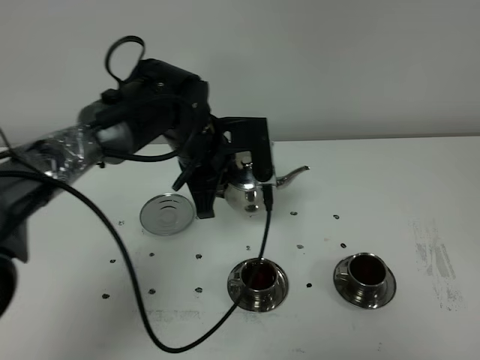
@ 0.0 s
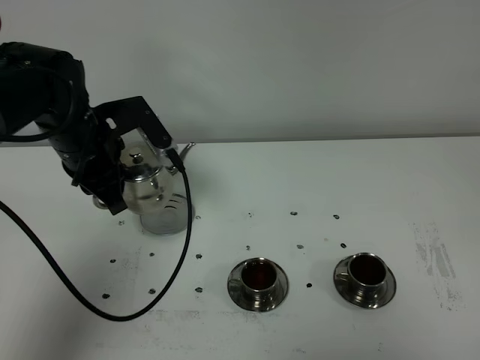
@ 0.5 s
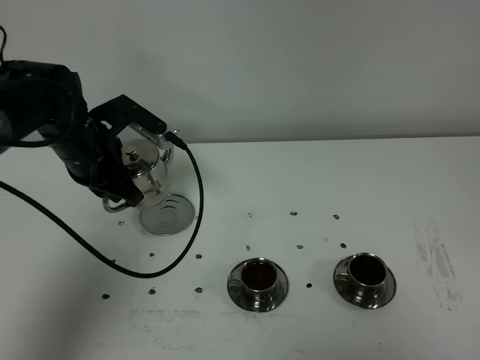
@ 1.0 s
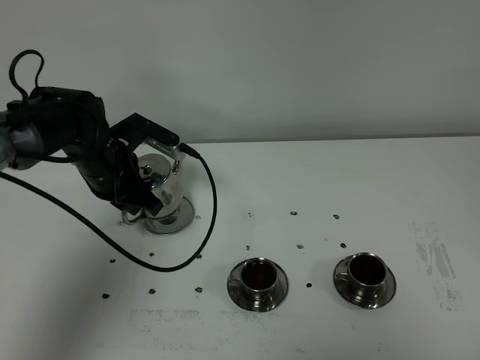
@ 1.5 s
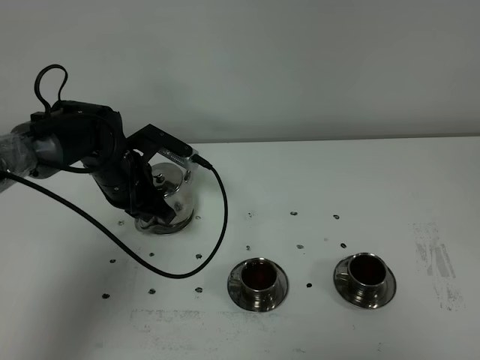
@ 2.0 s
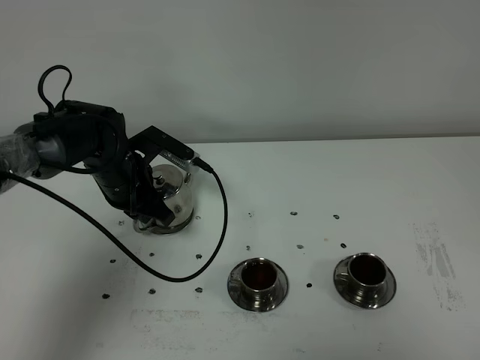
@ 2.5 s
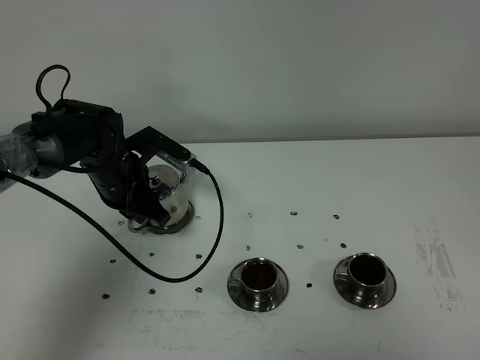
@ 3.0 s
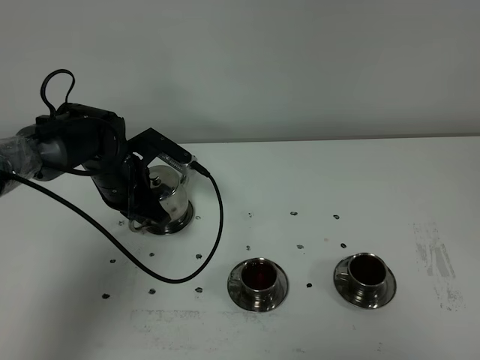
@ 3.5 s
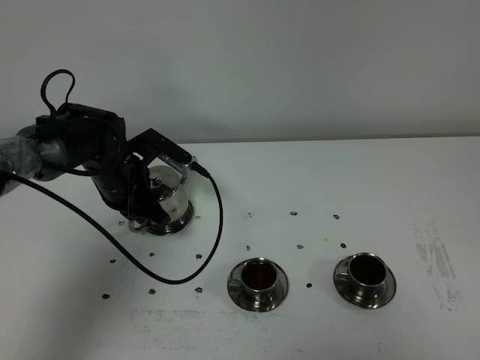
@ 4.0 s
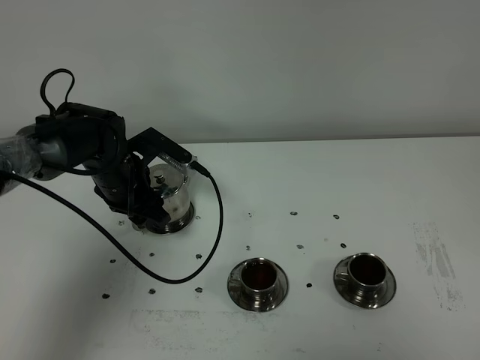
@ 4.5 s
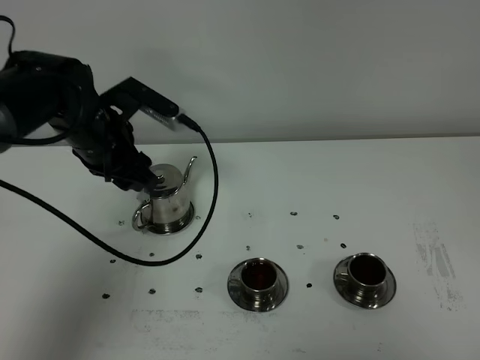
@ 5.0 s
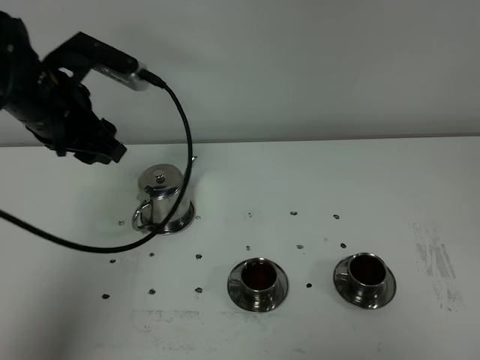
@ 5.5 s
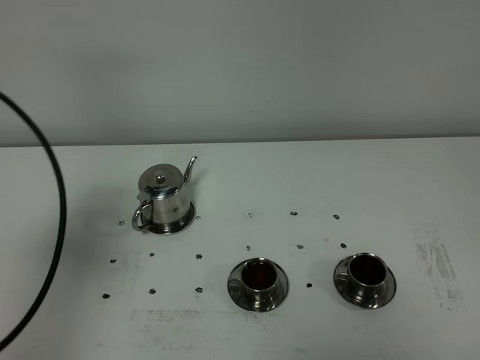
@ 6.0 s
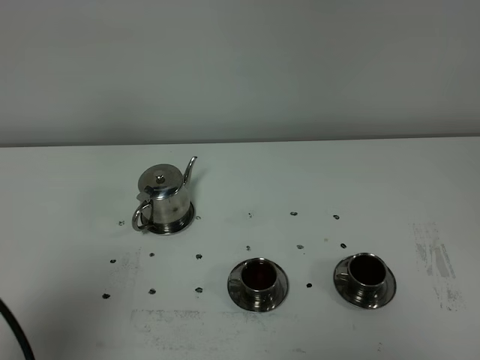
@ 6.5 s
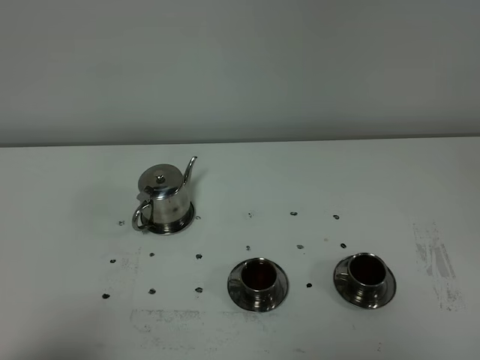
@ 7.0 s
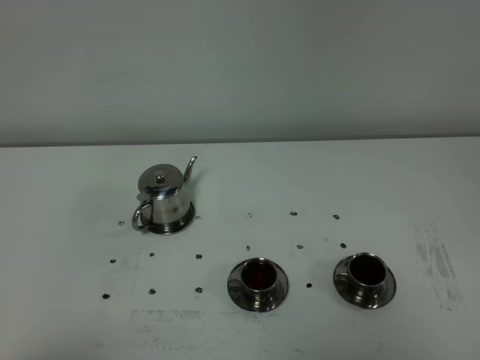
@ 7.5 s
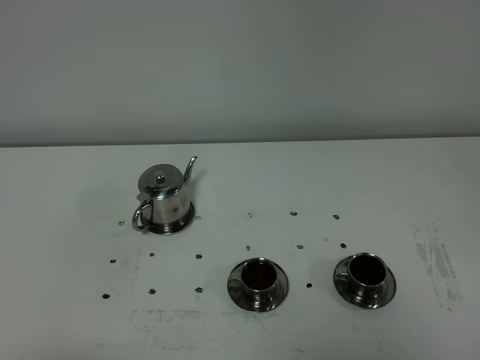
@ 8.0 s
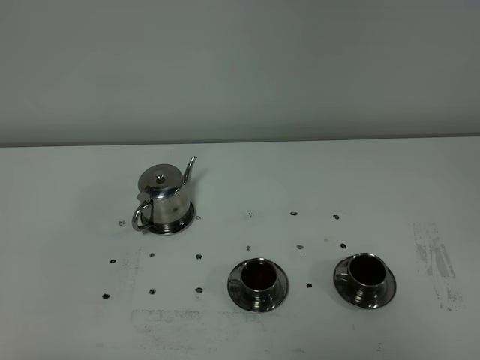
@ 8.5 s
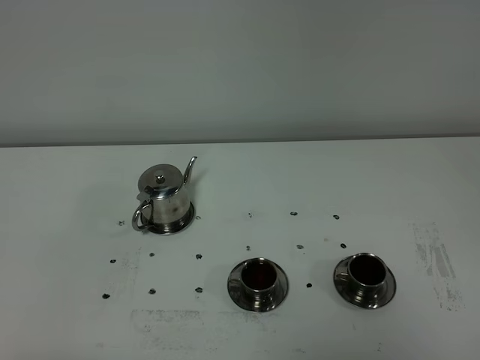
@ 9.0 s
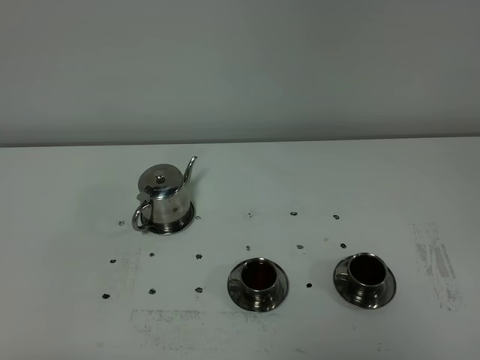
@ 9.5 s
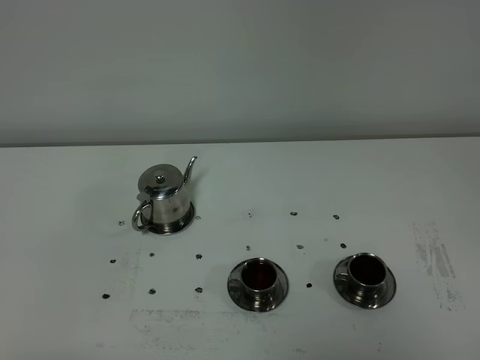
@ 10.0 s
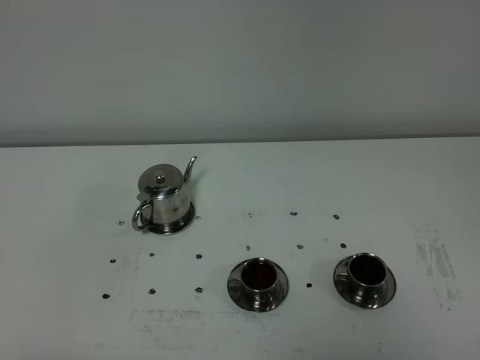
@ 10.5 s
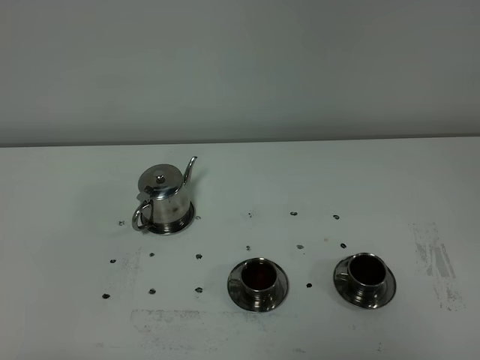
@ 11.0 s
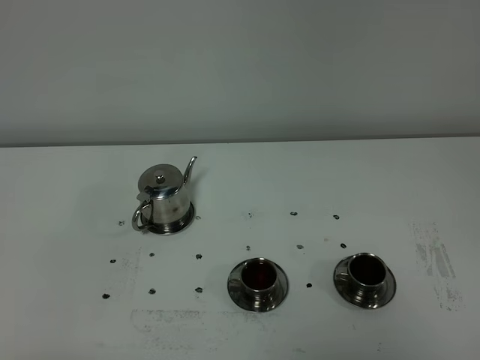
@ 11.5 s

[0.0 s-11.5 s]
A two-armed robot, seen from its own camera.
Task of the whole recording: grasp the stainless steel teapot and pour the tea into the two stainless steel teacups one by one, put the stainless steel teapot back in its original place.
0.0 to 2.0 s: The left gripper is displaced to the left and downward by about 15 cm.
2.0 to 4.0 s: Both grippers stay put.
4.0 to 6.0 s: The left gripper travels backward, upward and to the left by about 35 cm, and opens its fingers.
6.0 to 7.5 s: The left gripper heads backward, covering some 20 cm.
9.5 to 11.5 s: Both grippers stay put.

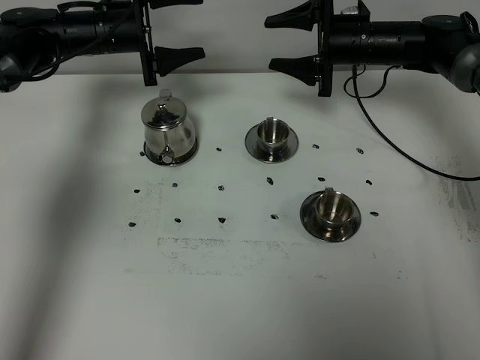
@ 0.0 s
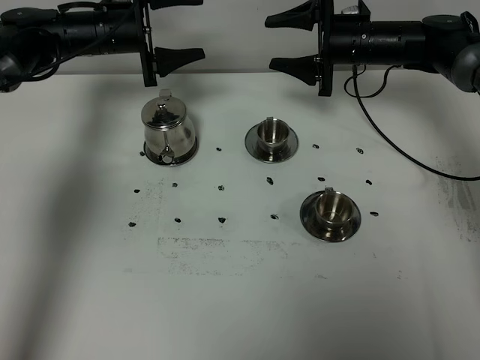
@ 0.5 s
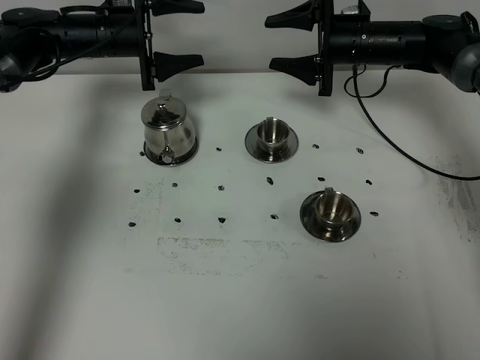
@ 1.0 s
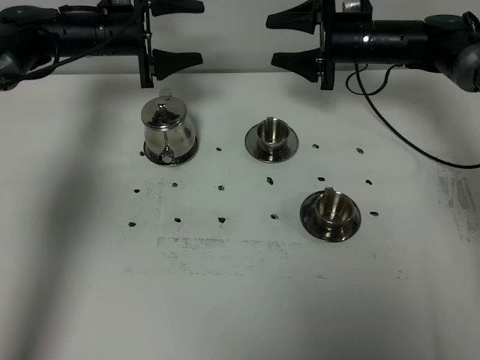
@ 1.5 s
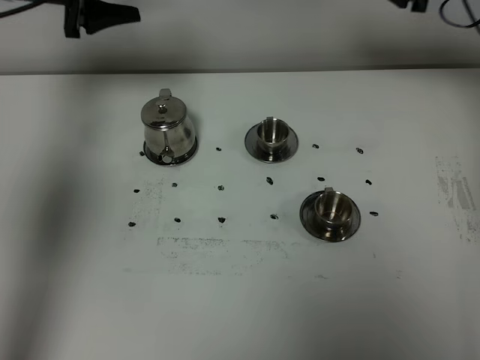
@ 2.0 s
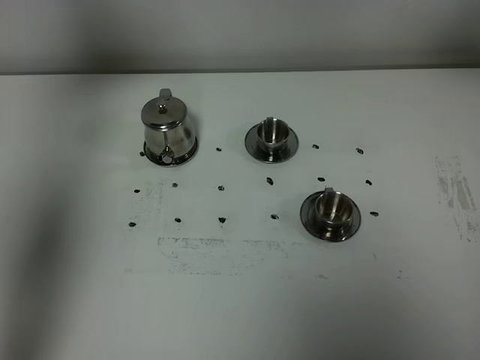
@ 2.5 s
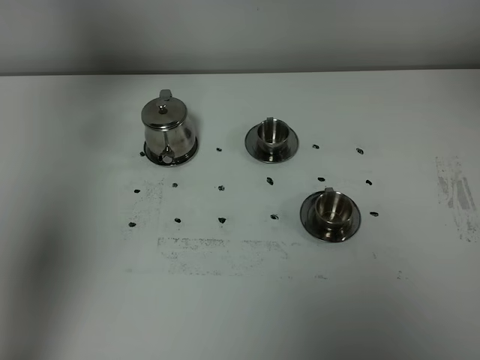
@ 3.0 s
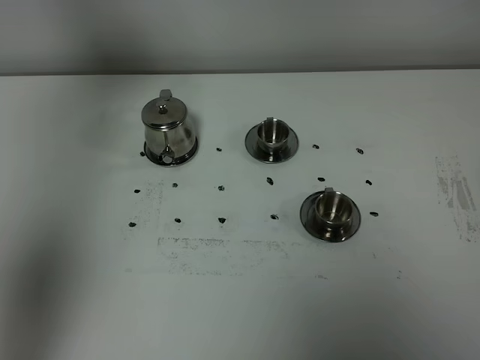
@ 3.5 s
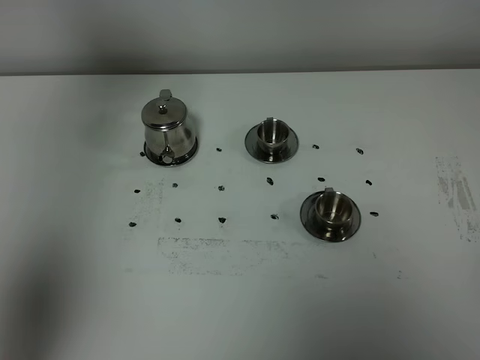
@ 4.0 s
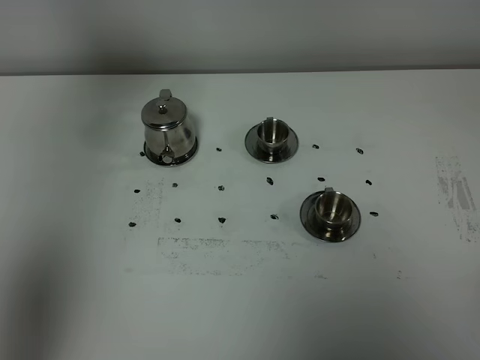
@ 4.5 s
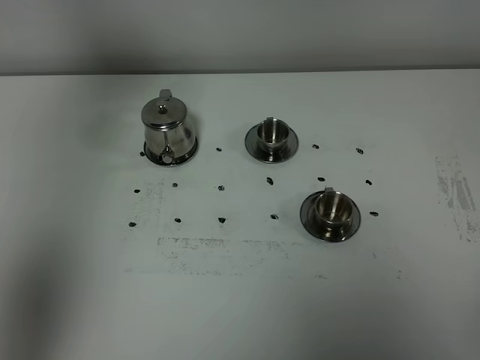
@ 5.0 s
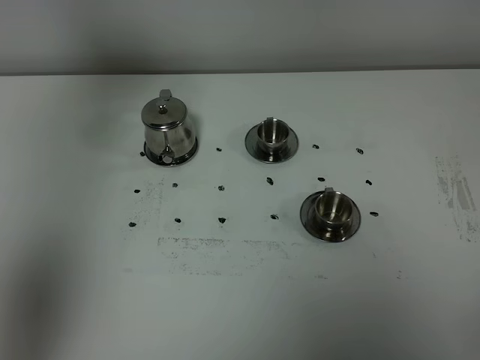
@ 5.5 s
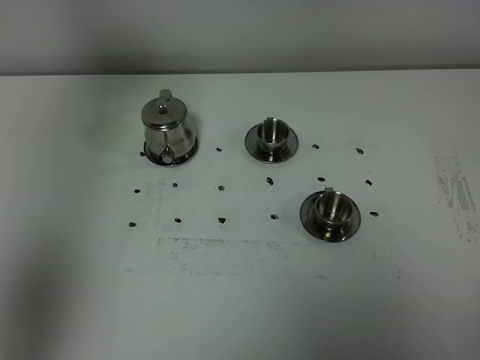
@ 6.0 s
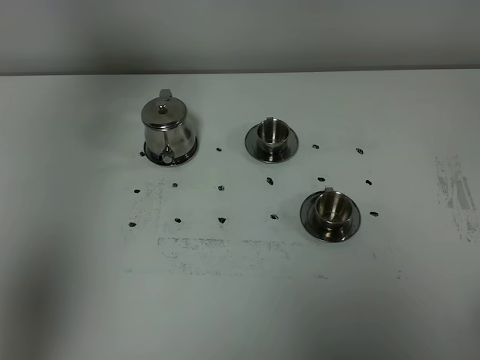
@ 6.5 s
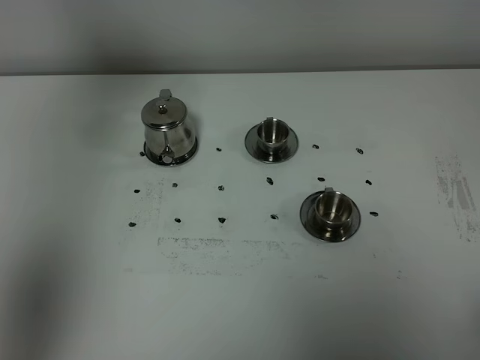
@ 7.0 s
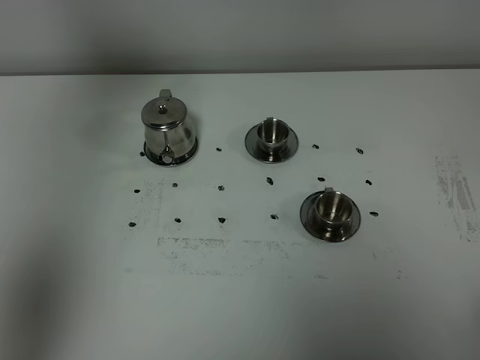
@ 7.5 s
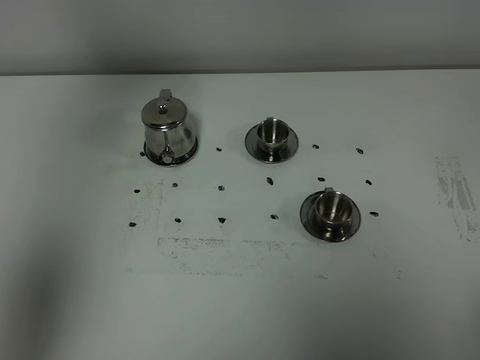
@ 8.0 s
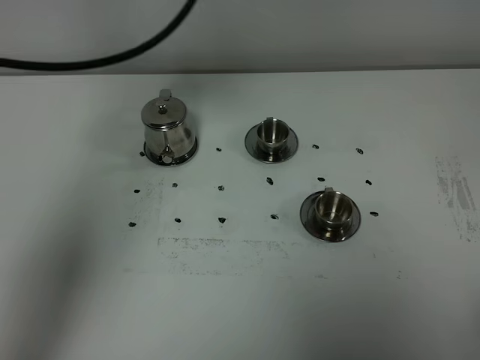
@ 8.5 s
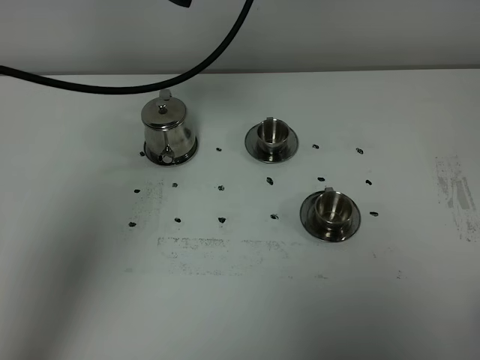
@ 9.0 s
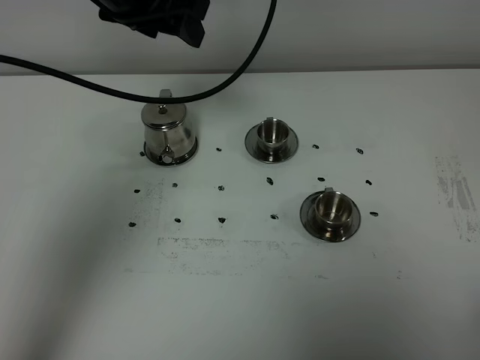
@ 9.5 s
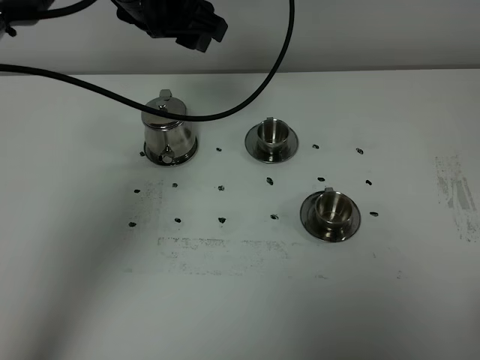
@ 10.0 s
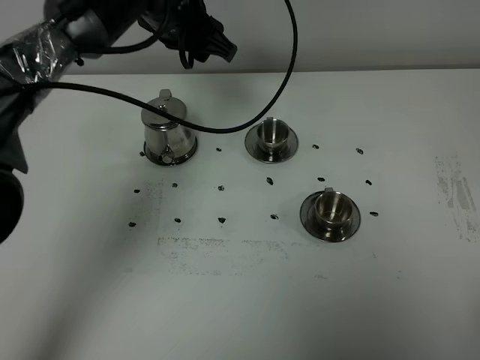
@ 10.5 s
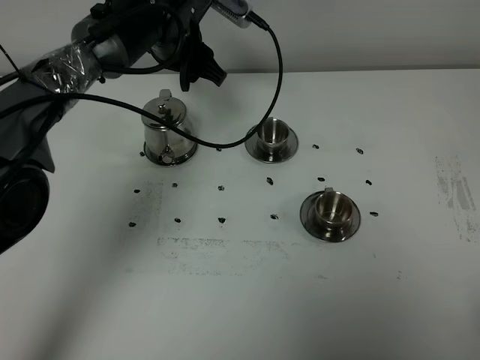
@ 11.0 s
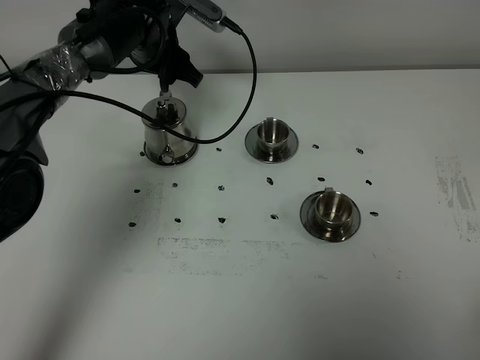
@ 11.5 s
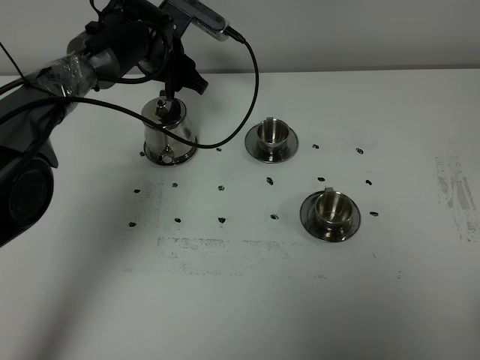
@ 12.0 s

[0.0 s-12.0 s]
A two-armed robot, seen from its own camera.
Task of the whole recording: grasp the stainless steel teapot and pour the tea into the two stainless steel teacups one by one, put the stainless steel teapot back in its original place.
0.0 to 2.0 s: The left gripper goes roughly 15 cm upward and to the left. Meanwhile the right gripper is displaced upward and to the right by approximately 15 cm.
2.0 to 4.0 s: The right gripper heads backward, covering some 50 cm. The left gripper is displaced upward and backward by roughly 30 cm.
8.0 to 10.0 s: The left gripper goes about 25 cm downward, to the right and forward.
10.0 to 12.0 s: The left gripper goes some 20 cm downward and forward.

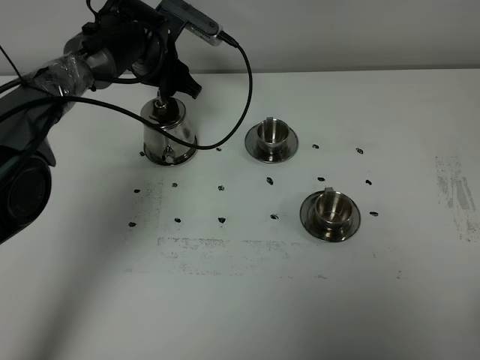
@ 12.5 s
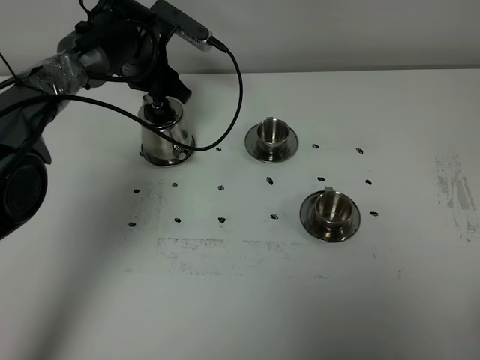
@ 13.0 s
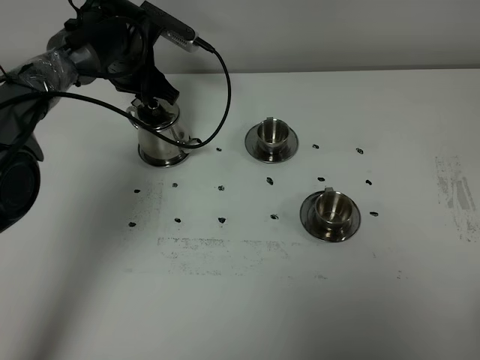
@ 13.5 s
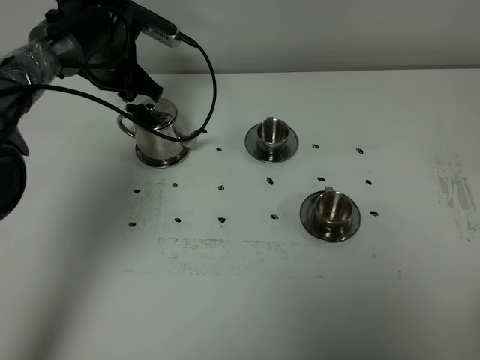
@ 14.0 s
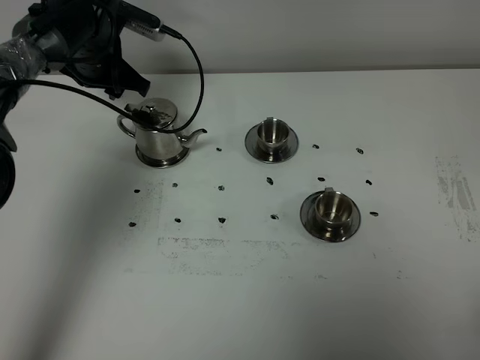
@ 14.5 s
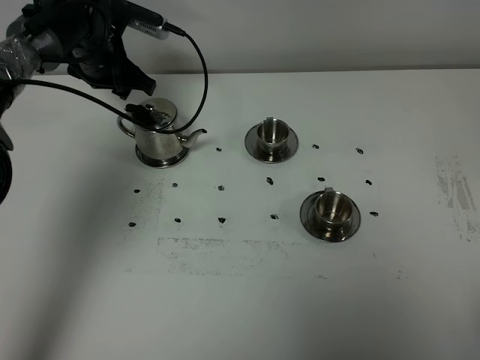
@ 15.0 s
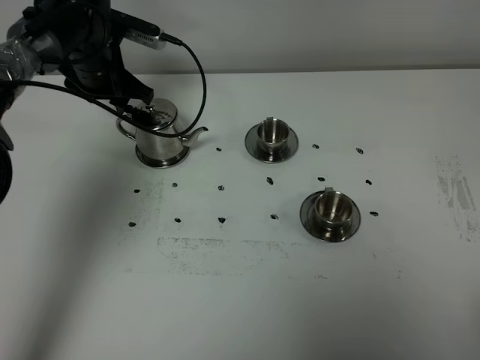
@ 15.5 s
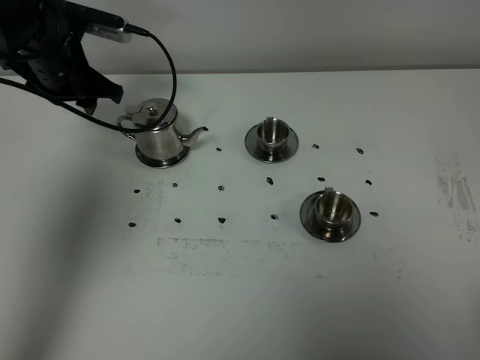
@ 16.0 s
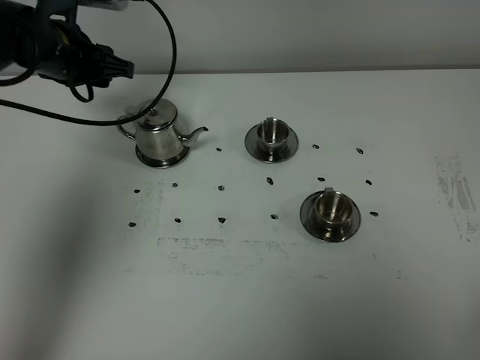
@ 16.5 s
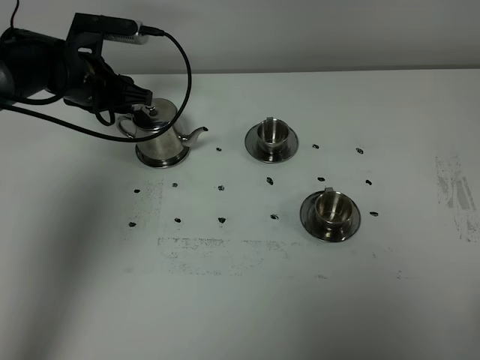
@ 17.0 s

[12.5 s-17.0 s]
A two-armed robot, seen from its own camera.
Task of the whole recording: grasp the stainless steel teapot and pour the tea into the two stainless steel teacups one by one, put the stainless steel teapot back in its original place.
12.5 to 14.5 s: The left gripper is displaced to the left by approximately 5 cm.
14.5 to 17.0 s: The left gripper is displaced backward by roughly 5 cm.
